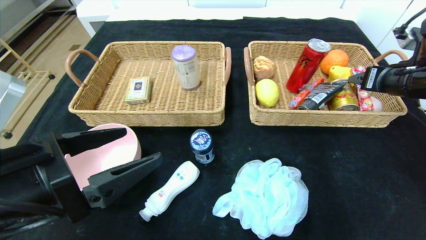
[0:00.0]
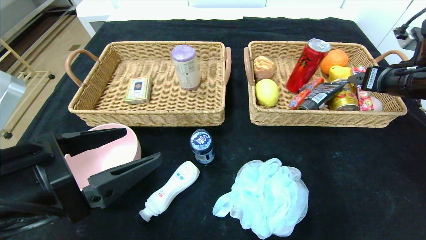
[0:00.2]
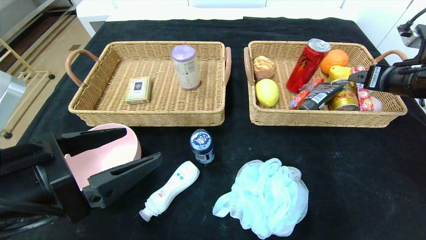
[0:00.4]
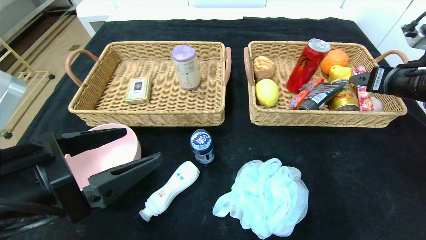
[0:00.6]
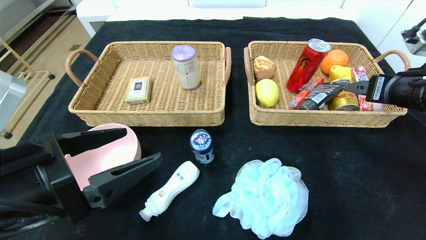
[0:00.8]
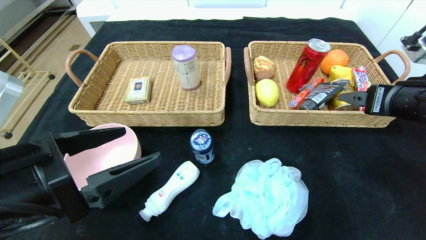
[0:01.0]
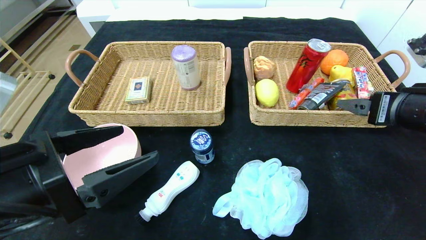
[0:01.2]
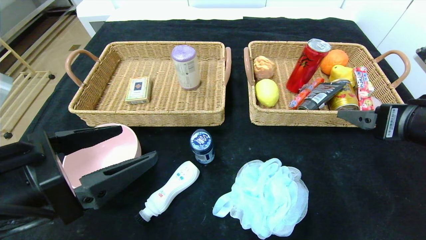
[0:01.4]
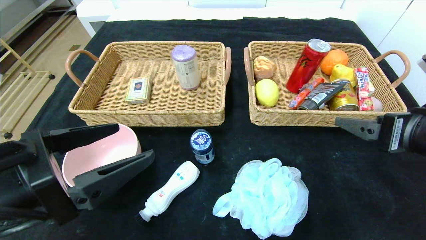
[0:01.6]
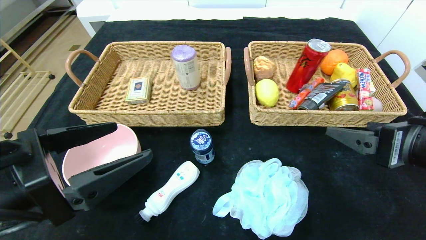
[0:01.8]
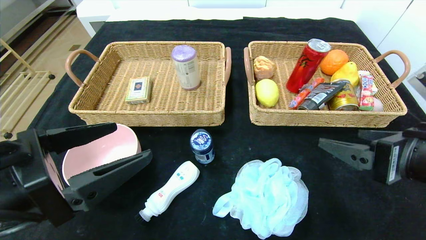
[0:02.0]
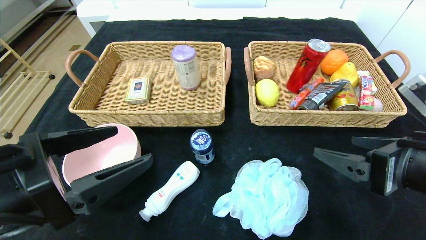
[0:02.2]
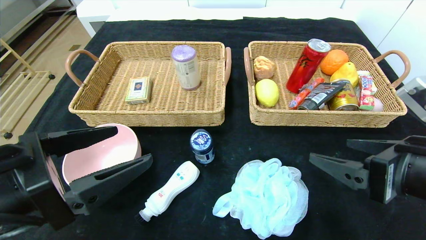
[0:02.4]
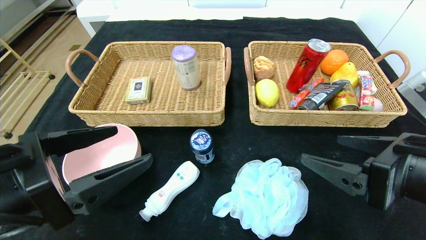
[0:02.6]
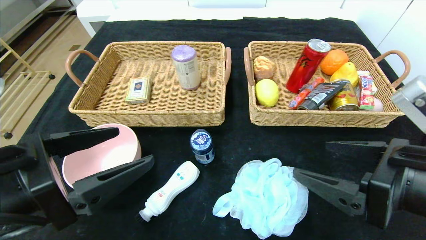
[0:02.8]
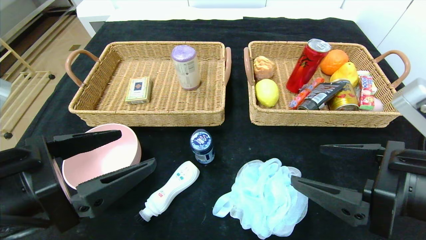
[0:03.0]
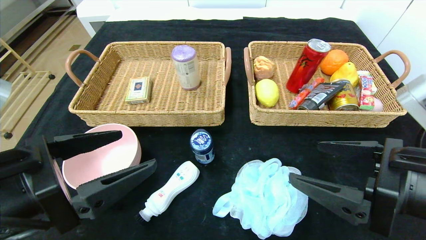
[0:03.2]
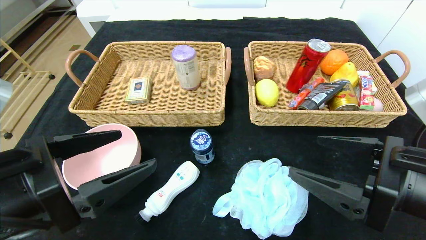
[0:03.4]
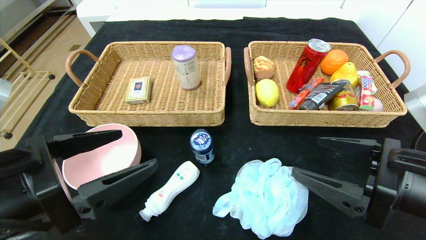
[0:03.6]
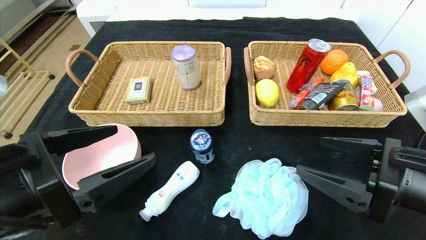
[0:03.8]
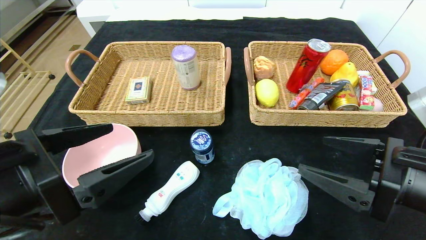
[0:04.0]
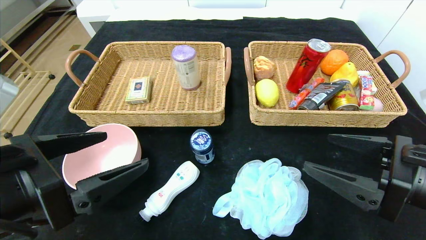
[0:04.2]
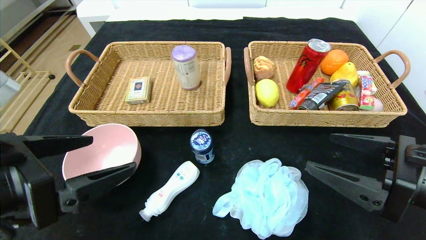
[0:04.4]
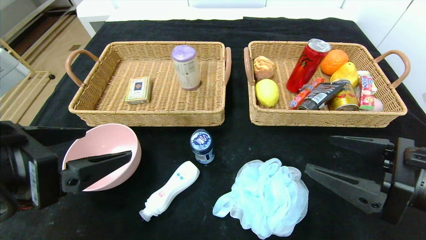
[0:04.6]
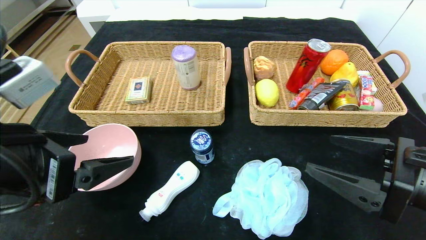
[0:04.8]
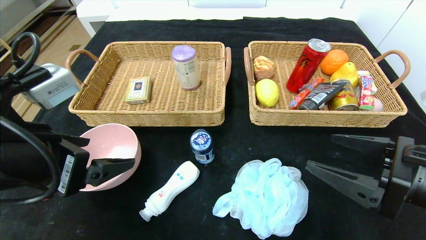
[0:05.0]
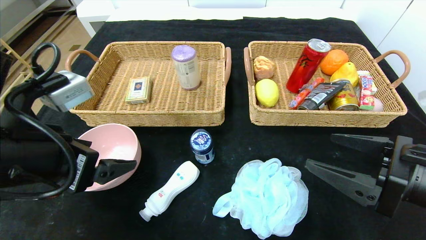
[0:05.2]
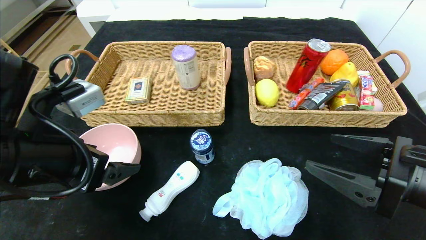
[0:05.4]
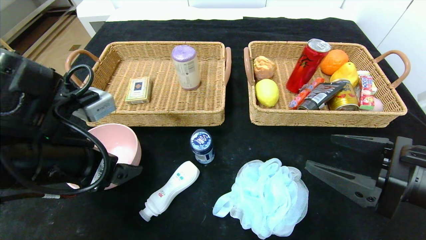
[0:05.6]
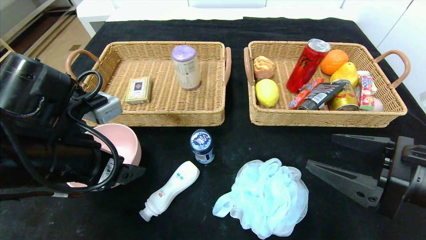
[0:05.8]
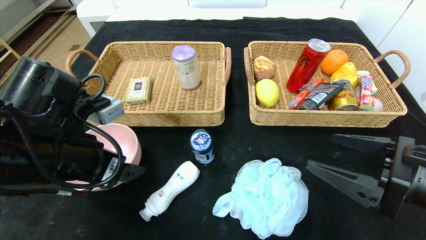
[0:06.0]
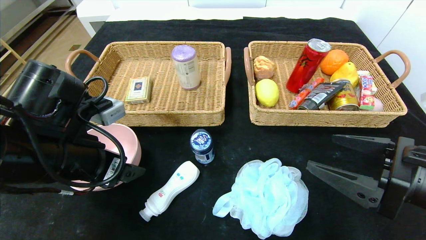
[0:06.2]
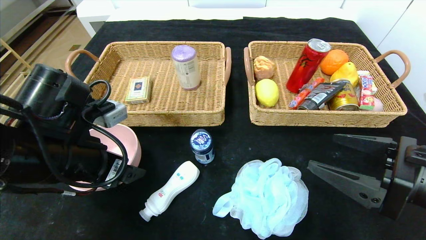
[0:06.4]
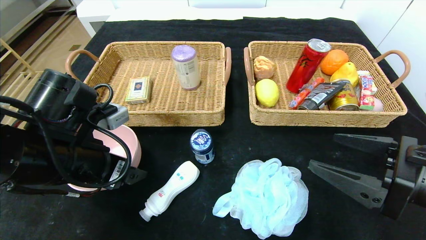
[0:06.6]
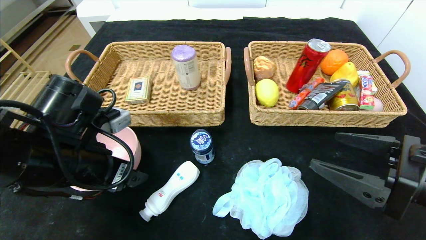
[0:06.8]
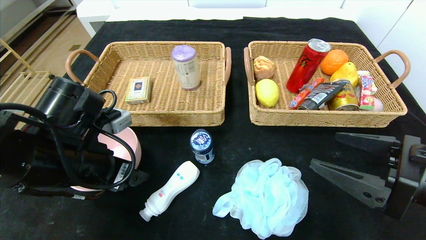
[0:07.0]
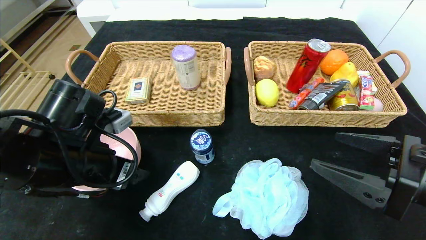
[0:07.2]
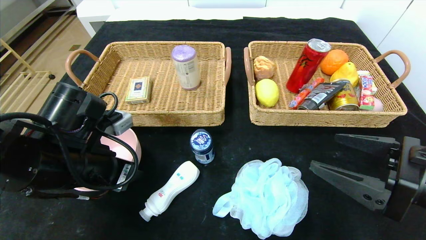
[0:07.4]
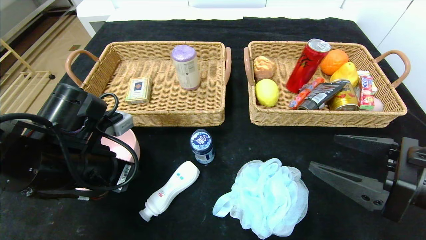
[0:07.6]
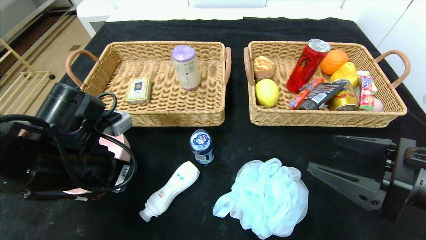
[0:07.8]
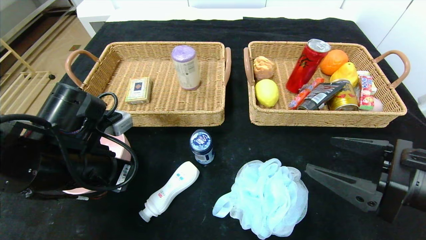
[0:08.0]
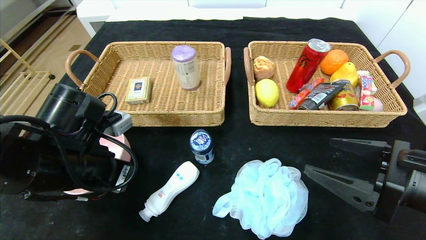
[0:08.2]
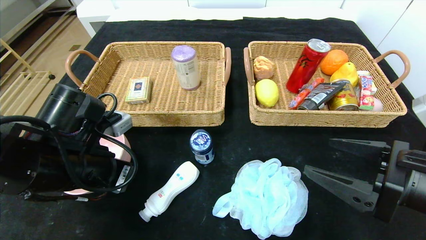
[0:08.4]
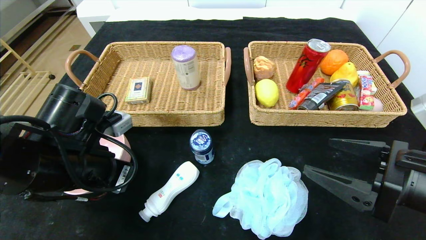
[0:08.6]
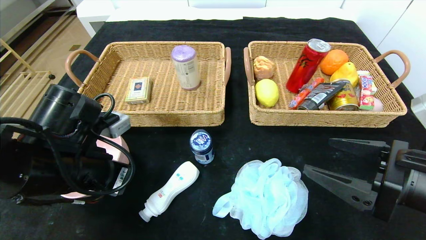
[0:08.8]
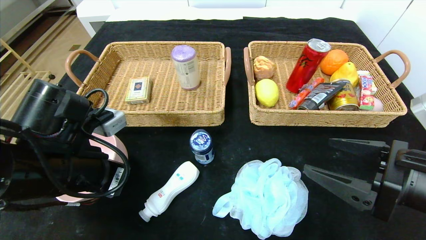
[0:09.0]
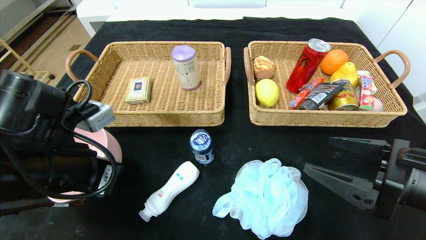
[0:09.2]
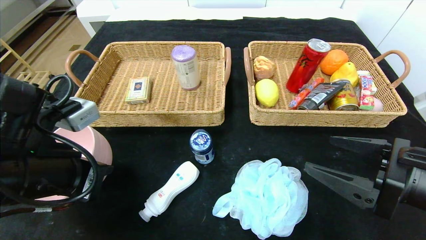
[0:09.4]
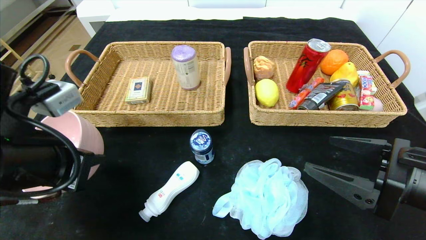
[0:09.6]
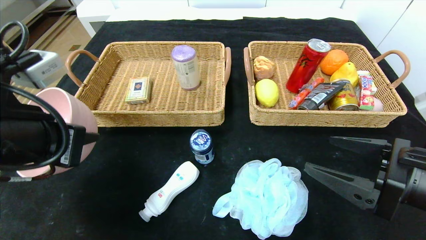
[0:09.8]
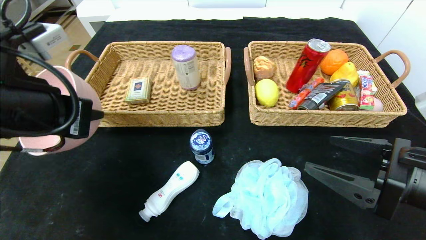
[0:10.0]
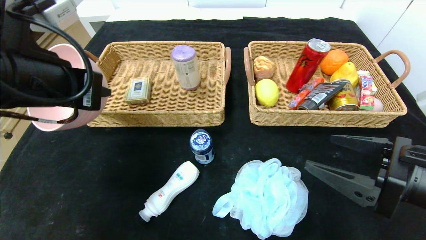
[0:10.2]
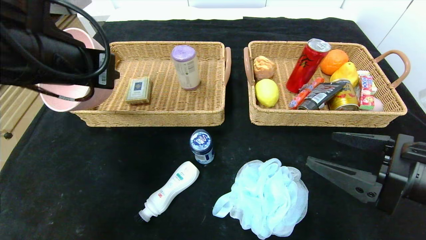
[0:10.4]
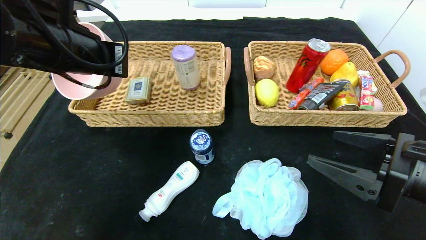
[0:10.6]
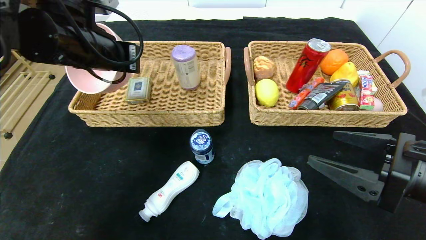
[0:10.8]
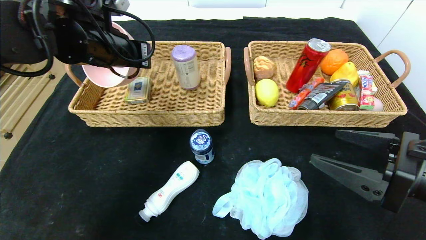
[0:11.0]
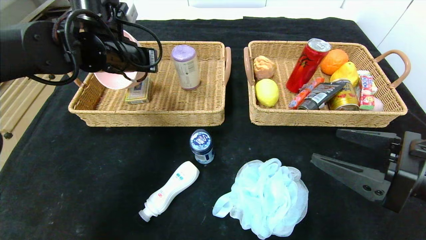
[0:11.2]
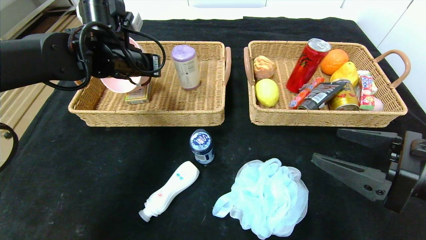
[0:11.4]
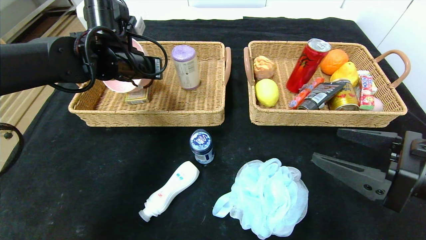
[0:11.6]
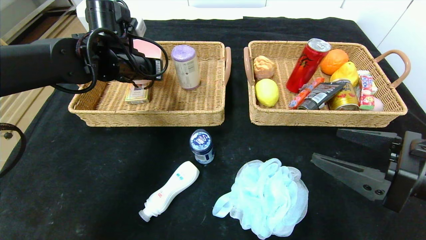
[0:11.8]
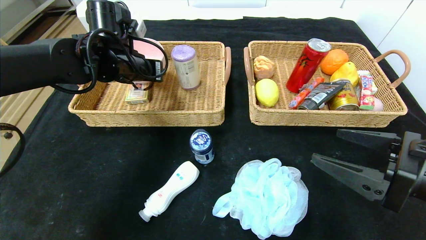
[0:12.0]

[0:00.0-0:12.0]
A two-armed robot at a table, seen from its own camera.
0:00.0 to 0:01.6: The right gripper is displaced backward and to the left by approximately 15 cm.
0:01.6 to 0:03.0: The right gripper goes approximately 5 cm to the left.
0:03.0 to 0:04.4: There are only small adjustments of the grippers.
0:04.4 to 0:06.0: The left gripper shifts roughly 10 cm forward.
0:06.0 to 0:07.6: The left gripper closes up.
0:07.6 to 0:09.0: The grippers make only small movements.
0:09.0 to 0:10.4: The left gripper is displaced upward by some 15 cm.
0:10.4 to 0:12.0: The left gripper is displaced forward by approximately 15 cm, and opens.

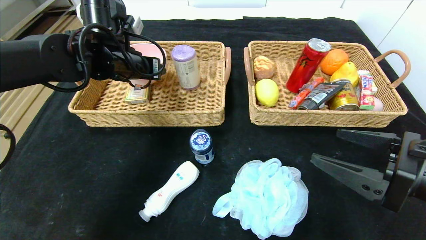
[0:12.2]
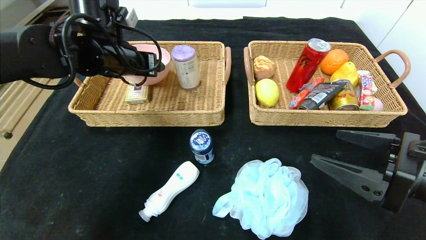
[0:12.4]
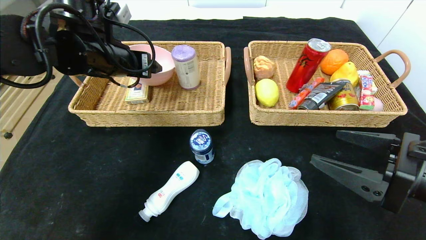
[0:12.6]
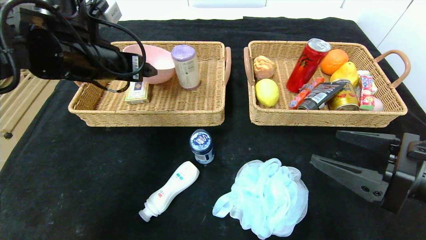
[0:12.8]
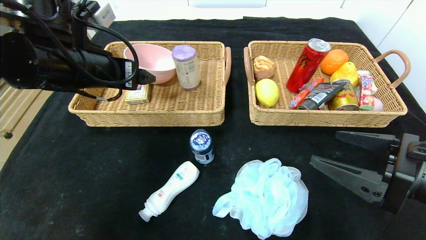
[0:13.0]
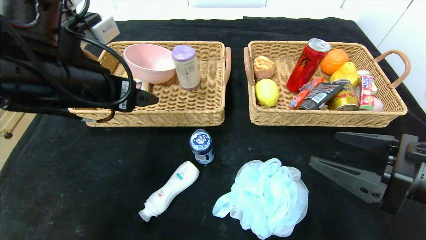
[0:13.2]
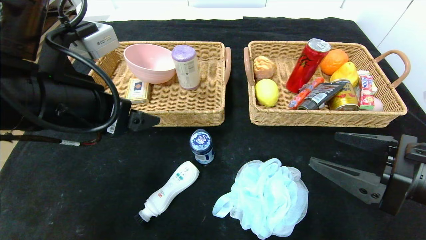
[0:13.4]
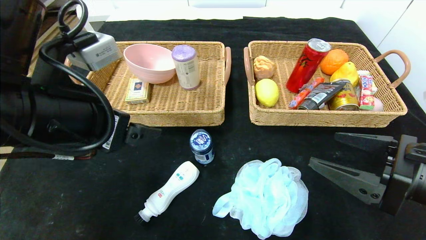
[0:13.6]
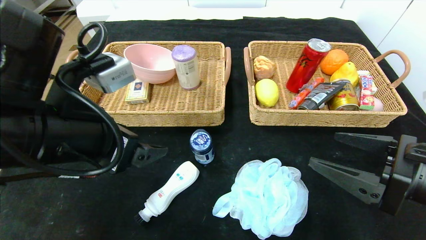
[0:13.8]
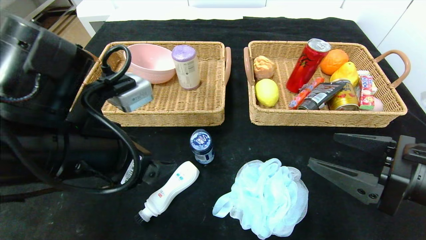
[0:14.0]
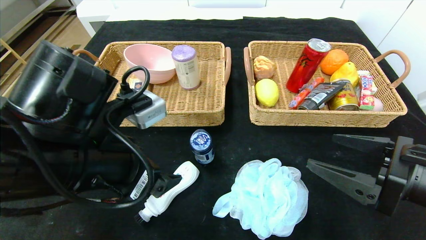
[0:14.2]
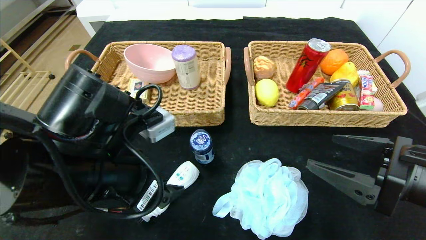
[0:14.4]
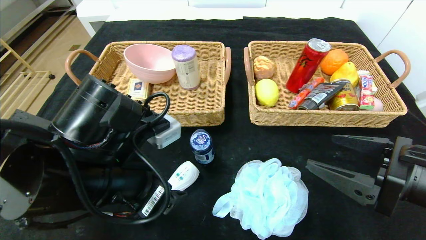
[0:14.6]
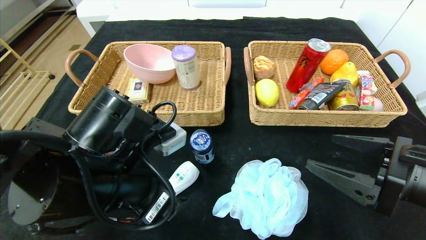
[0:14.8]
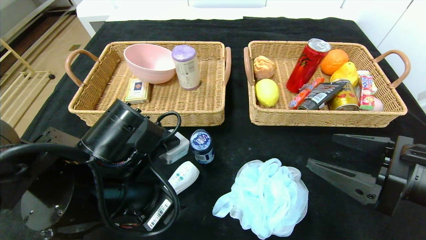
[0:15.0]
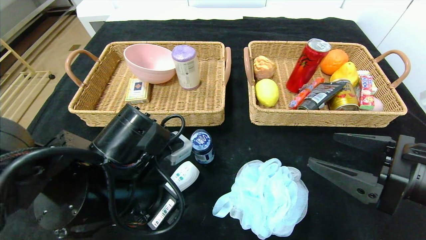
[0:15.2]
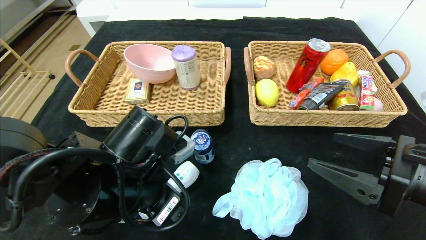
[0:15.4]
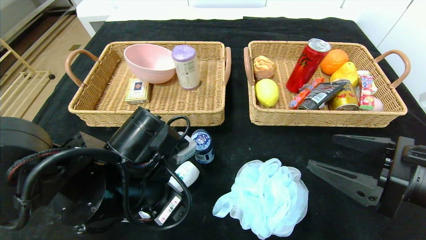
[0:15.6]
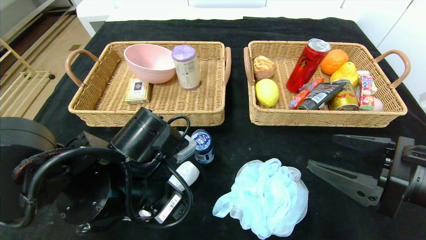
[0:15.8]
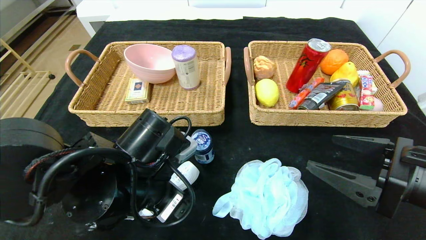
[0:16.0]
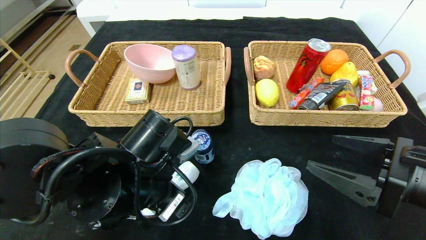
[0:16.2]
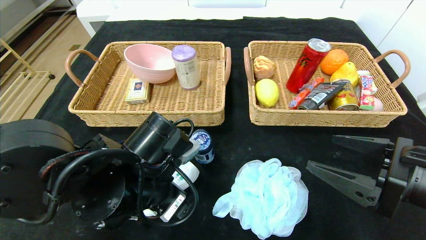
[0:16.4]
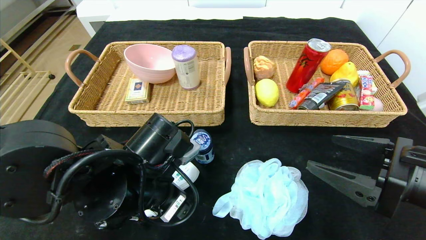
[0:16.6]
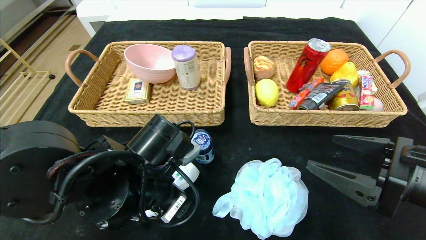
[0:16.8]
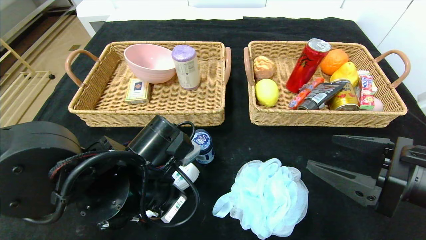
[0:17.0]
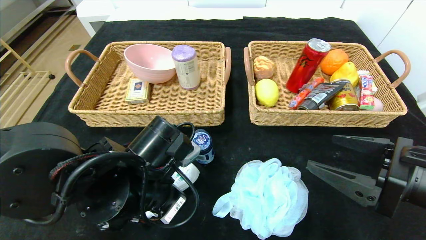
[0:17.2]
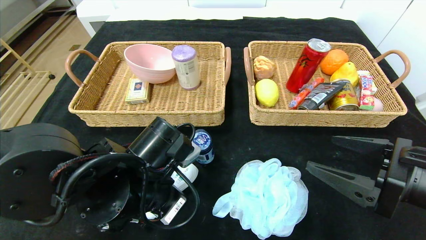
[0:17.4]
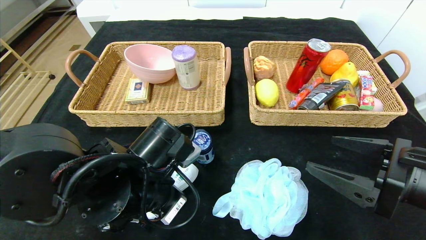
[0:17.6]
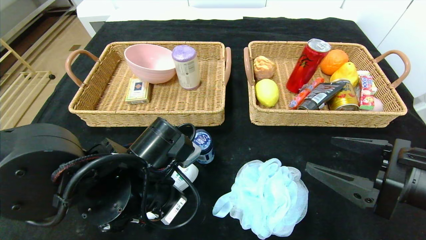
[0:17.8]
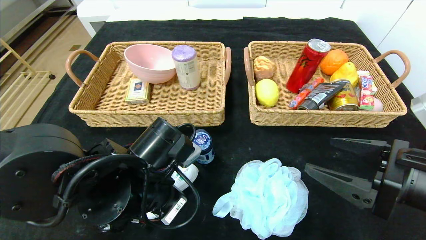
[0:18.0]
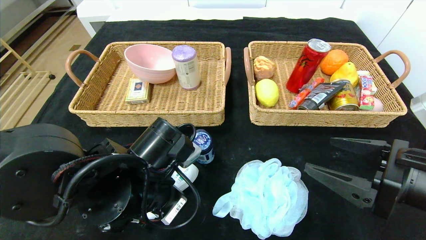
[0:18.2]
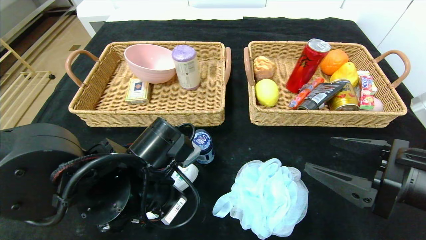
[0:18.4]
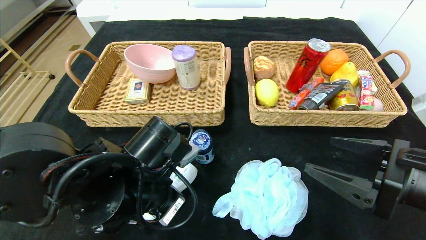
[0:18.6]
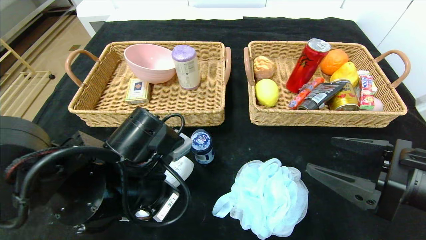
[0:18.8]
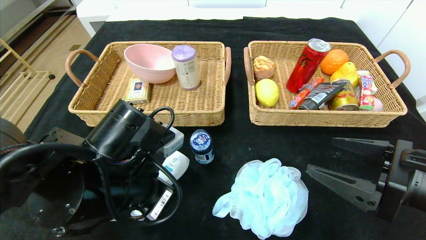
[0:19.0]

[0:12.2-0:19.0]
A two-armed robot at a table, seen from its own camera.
0:12.2 to 0:13.6: The left gripper moves backward, some 20 cm.
0:13.6 to 0:15.0: The left gripper shifts approximately 10 cm downward.
0:15.0 to 0:16.2: The grippers make only small movements.
0:16.2 to 0:17.6: The left gripper closes up.
0:17.6 to 0:19.0: The grippers make only small movements.
